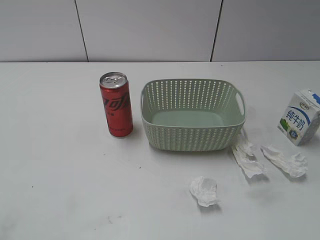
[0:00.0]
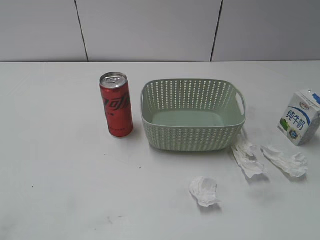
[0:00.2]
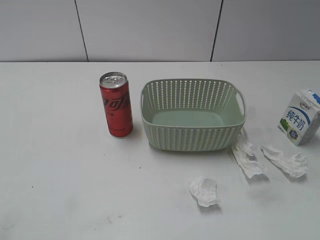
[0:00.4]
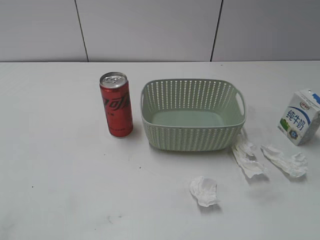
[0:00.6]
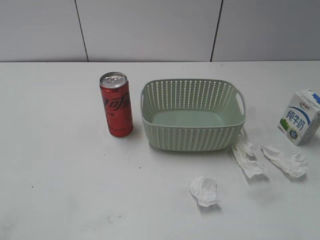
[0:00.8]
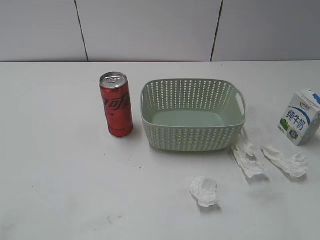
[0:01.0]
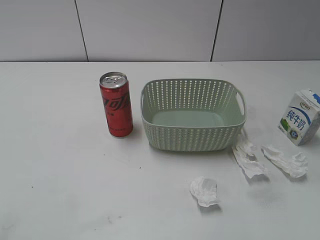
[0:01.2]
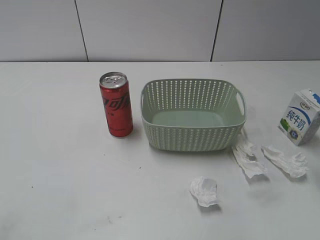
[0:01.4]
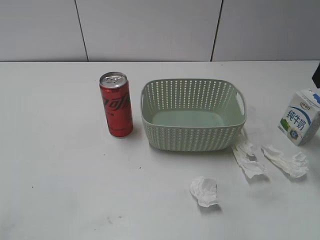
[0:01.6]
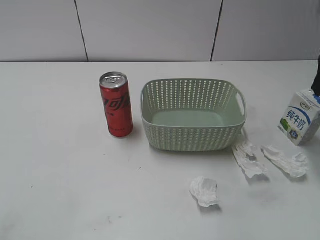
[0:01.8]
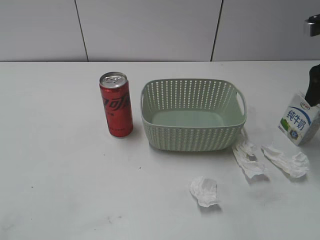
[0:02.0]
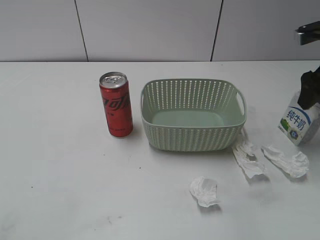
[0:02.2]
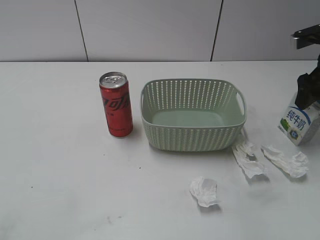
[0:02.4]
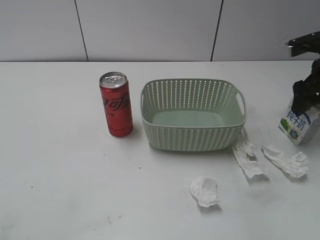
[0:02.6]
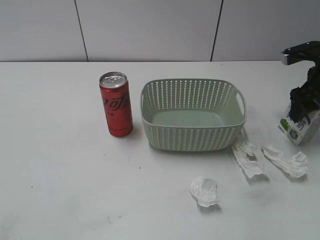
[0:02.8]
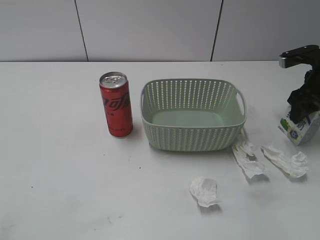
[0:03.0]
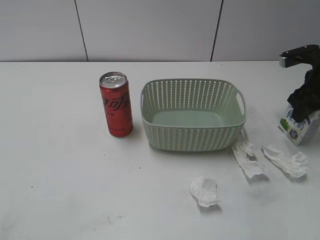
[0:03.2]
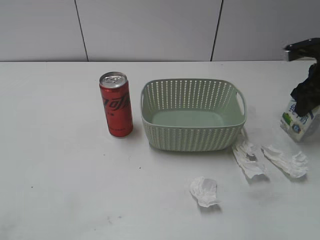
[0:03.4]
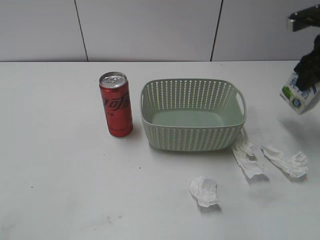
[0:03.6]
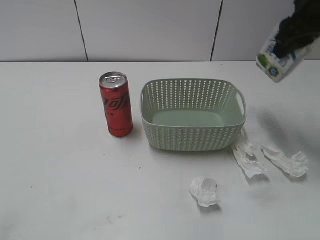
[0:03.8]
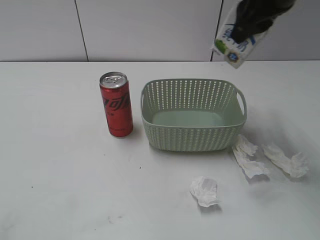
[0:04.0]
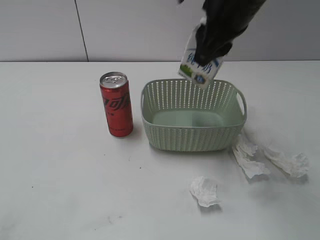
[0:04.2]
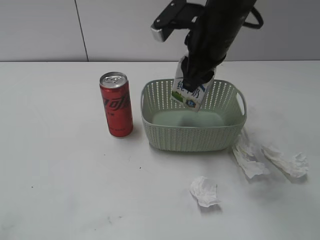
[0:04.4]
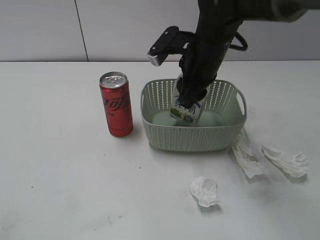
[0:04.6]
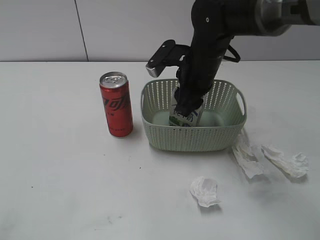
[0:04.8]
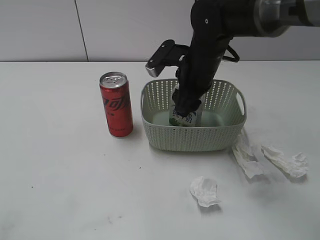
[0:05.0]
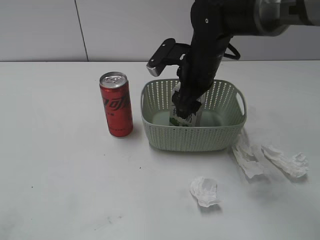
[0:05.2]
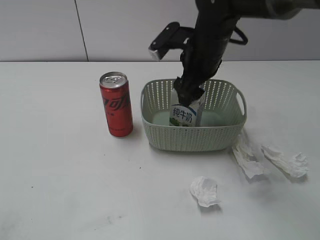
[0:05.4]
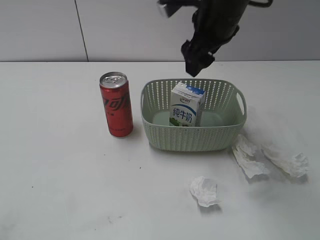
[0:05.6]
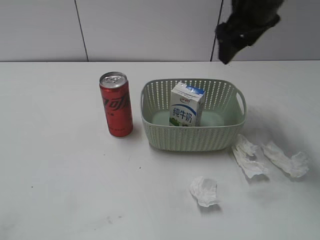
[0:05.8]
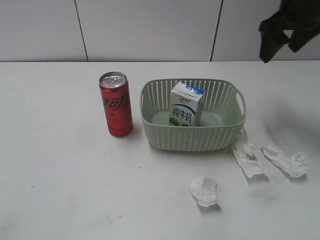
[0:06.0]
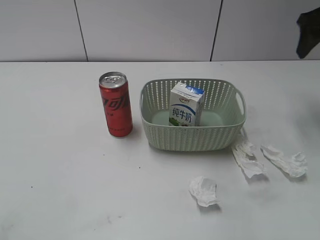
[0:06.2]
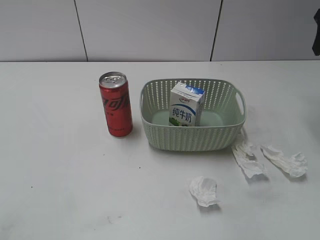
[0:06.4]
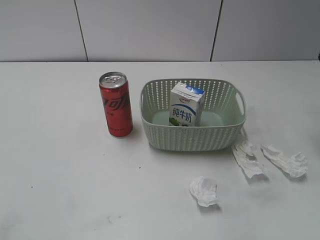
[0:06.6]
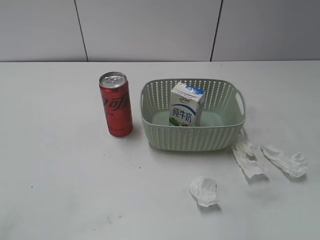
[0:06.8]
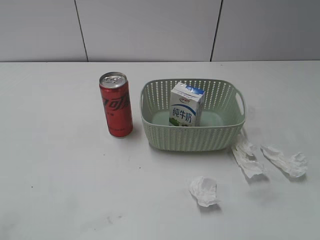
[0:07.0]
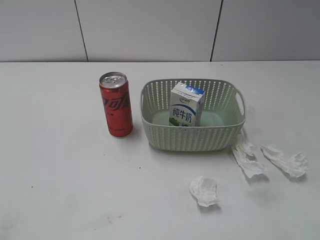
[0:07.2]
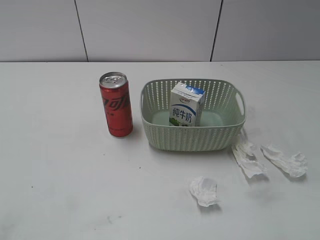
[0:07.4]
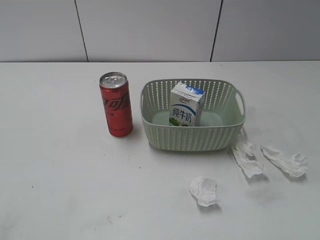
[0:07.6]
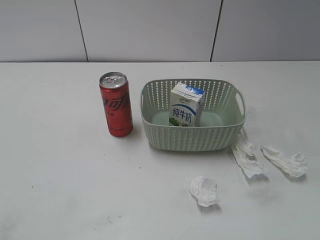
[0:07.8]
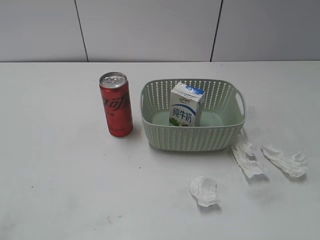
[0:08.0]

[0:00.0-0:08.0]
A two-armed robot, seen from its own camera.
Step, 0:01.6 to 0:03.0: Grasp the milk with right gripper.
Step, 0:03.2 to 0:05.6: Place the milk in the basket with right gripper.
0:01.6 to 0:03.2: The right gripper is displaced downward and forward by about 15 cm, and closes up.
0:03.2 to 0:04.8: The right gripper is displaced to the left by about 25 cm.
0:04.8 to 0:06.4: The right gripper goes some 30 cm to the right and upward, and opens up.

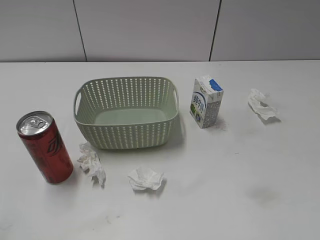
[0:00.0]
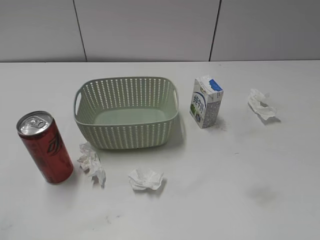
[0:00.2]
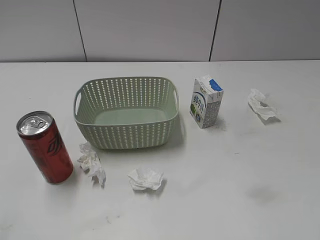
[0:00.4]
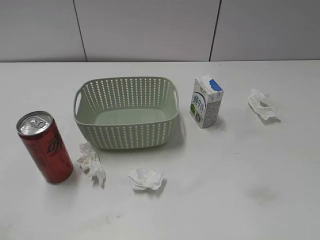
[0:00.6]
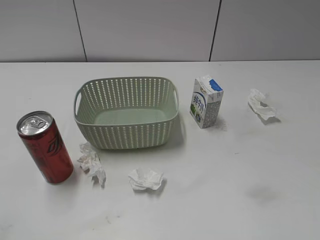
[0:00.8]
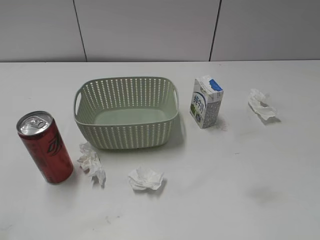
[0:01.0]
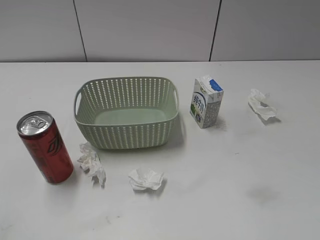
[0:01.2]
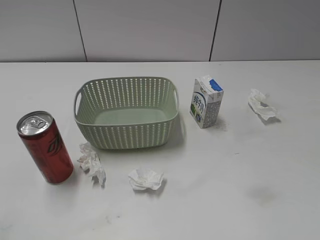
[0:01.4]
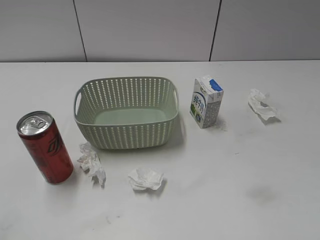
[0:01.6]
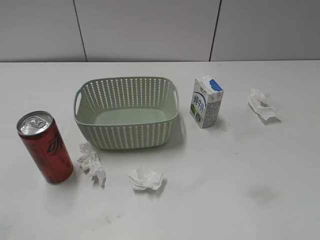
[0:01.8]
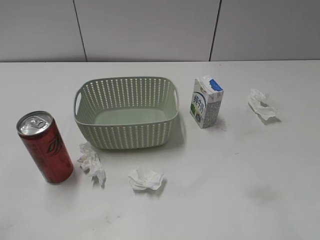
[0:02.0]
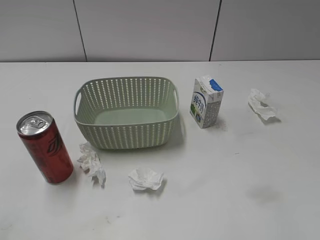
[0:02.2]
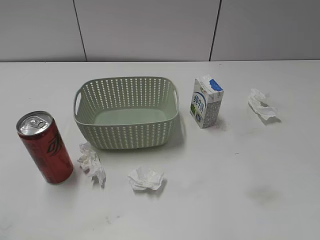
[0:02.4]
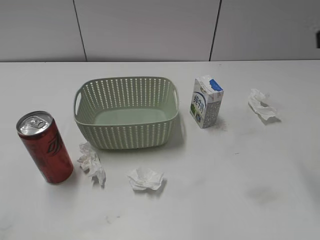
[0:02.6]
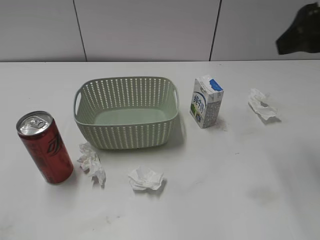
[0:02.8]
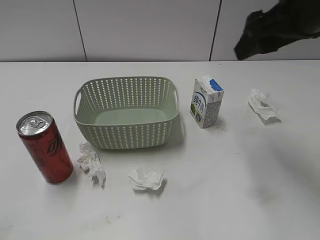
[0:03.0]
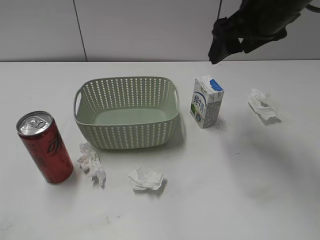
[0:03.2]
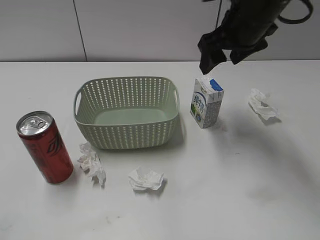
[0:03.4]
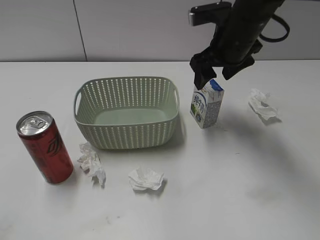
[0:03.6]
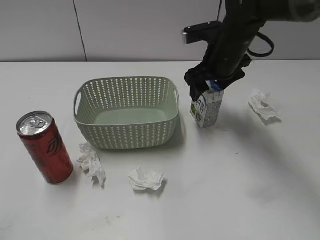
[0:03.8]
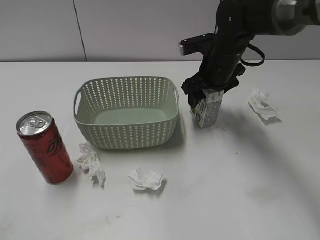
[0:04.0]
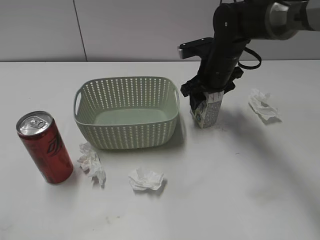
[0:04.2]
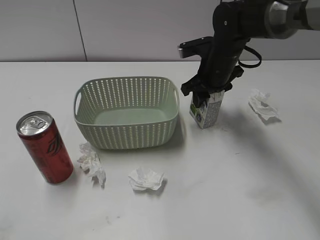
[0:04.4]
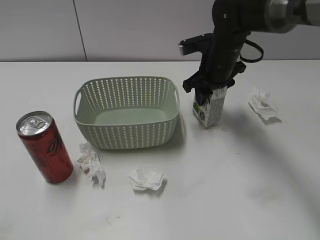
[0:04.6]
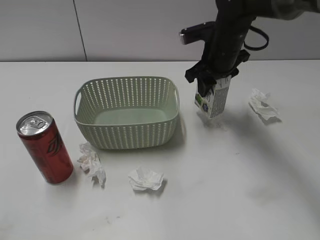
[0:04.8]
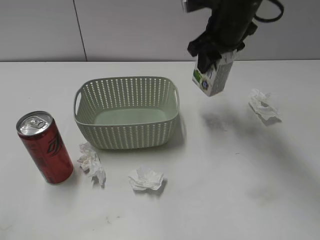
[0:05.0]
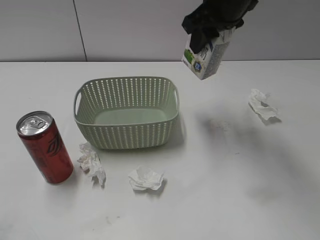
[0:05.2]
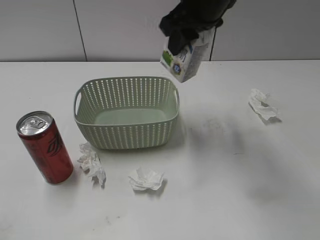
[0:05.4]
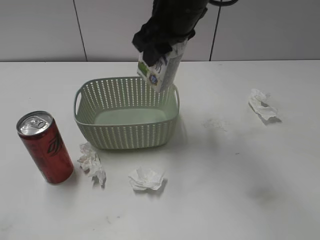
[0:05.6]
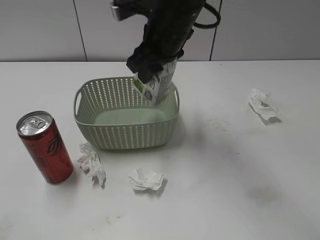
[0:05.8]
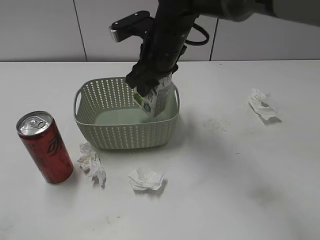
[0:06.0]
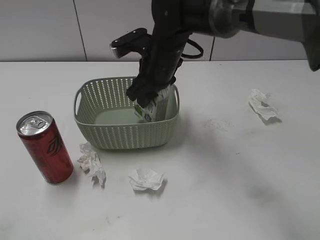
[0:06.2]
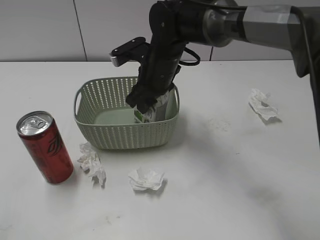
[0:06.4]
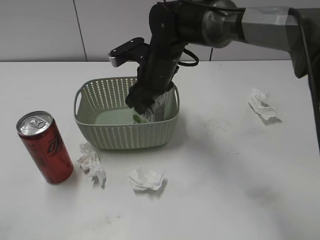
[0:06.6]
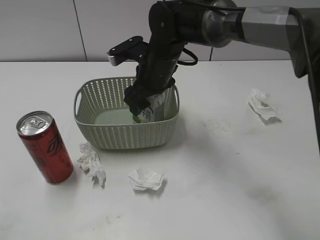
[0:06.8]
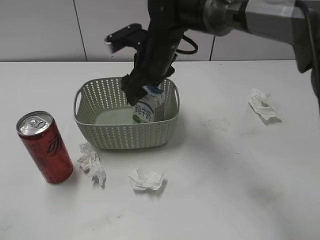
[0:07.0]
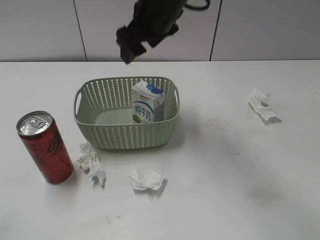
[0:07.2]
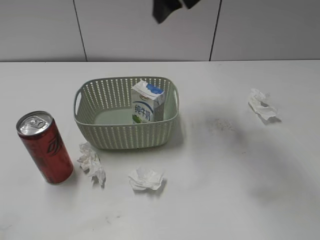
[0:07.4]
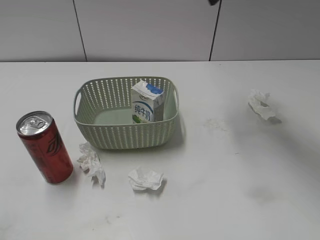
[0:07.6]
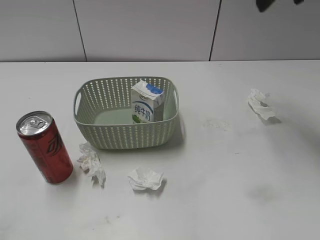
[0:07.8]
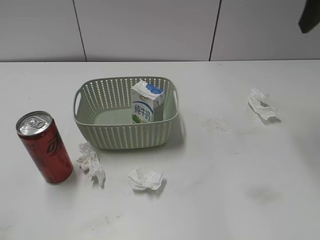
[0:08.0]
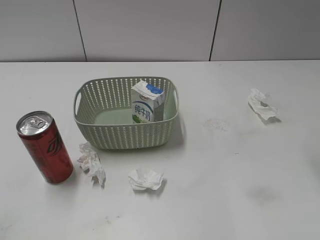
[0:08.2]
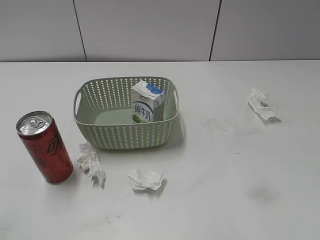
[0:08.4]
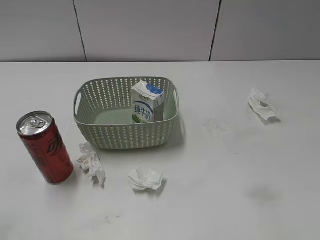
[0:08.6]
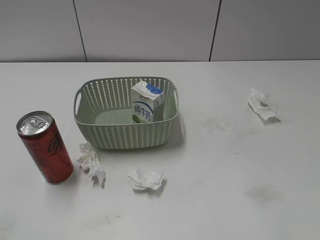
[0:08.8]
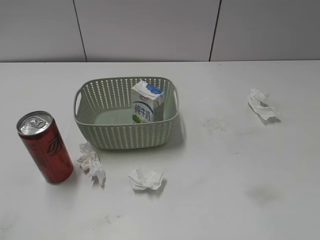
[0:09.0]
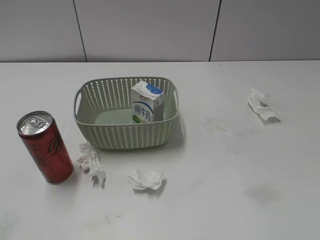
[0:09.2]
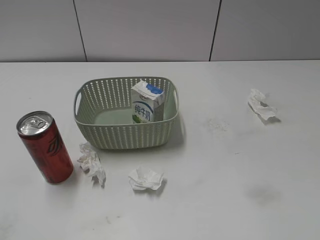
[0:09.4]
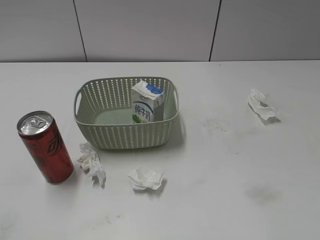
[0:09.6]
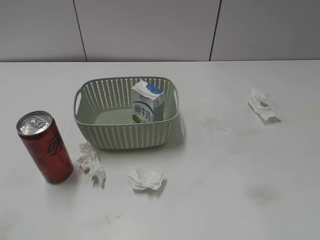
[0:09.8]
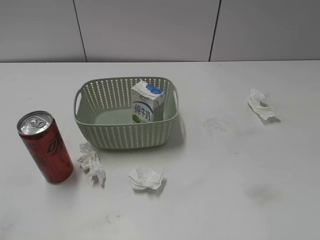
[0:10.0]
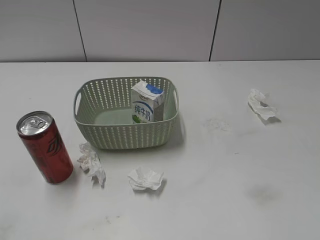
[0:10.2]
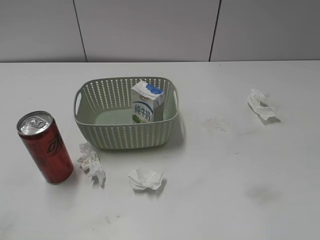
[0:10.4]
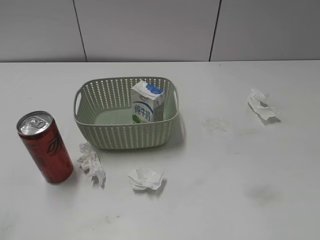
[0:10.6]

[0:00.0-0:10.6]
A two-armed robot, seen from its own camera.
Step, 0:02.6 to 0:04.4: Grasp the milk with right gripper.
Step, 0:04.6 to 0:07.2: Place the milk in the basket with right gripper.
0:01.6 to 0:03.0: The right gripper is displaced forward and to the left by about 30 cm.
0:03.0 to 0:04.6: The right gripper heads downward, forward and to the left, covering approximately 20 cm, and closes.
0:04.6 to 0:06.0: The right gripper moves to the left and upward, some 10 cm.
0:06.0 to 0:07.6: The right gripper moves upward and to the right, roughly 20 cm, and opens its fingers.
0:07.6 to 0:09.0: The right gripper travels backward and to the right by roughly 40 cm.

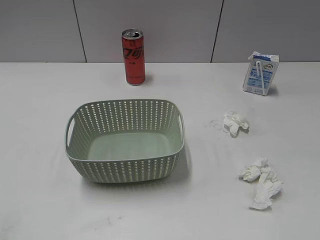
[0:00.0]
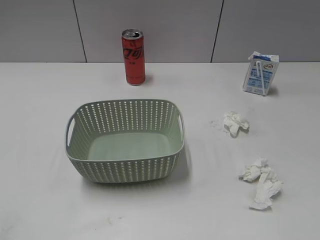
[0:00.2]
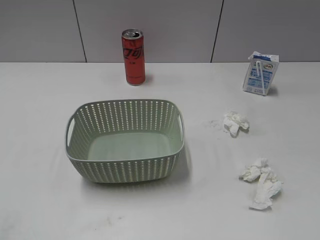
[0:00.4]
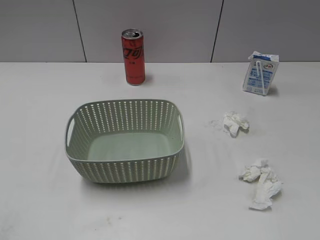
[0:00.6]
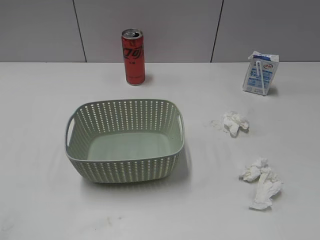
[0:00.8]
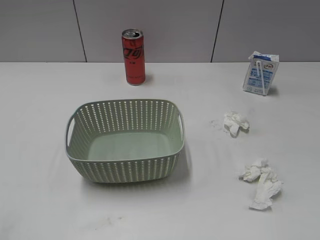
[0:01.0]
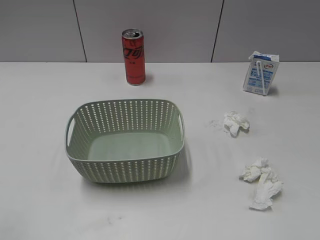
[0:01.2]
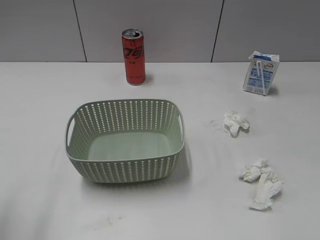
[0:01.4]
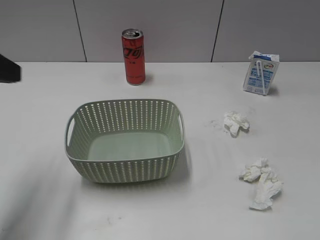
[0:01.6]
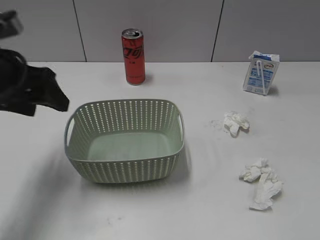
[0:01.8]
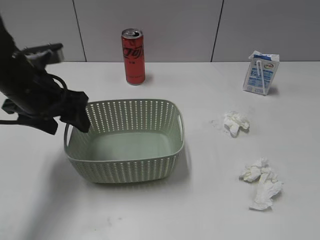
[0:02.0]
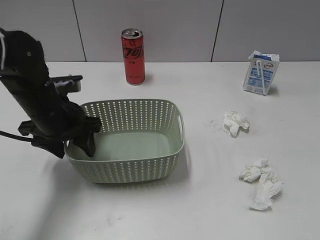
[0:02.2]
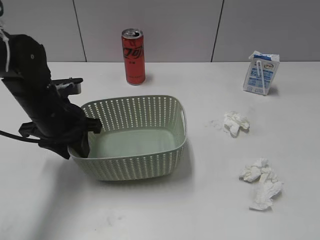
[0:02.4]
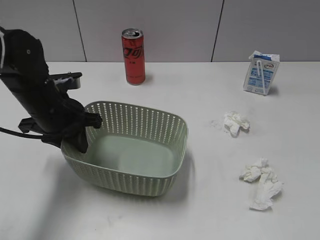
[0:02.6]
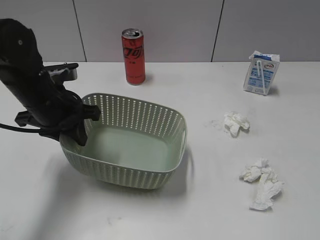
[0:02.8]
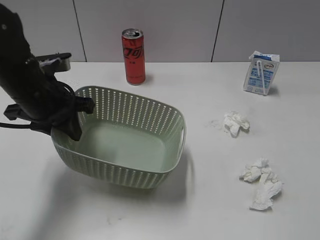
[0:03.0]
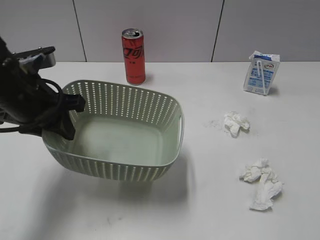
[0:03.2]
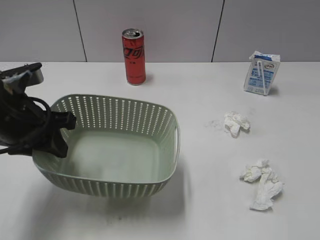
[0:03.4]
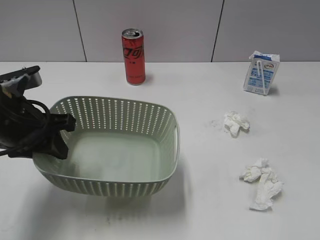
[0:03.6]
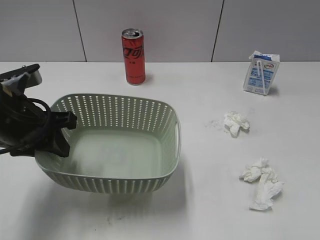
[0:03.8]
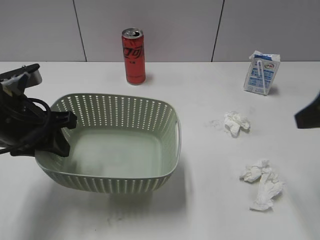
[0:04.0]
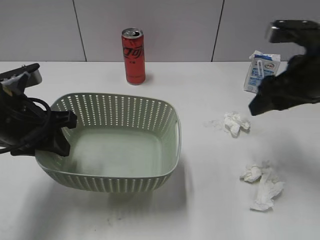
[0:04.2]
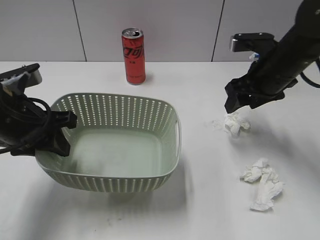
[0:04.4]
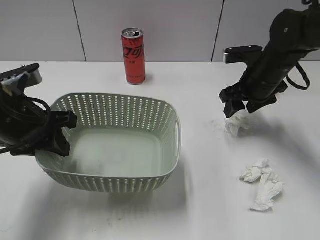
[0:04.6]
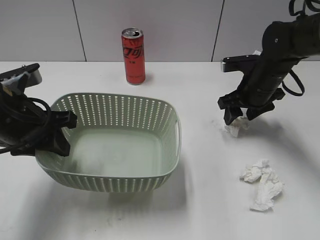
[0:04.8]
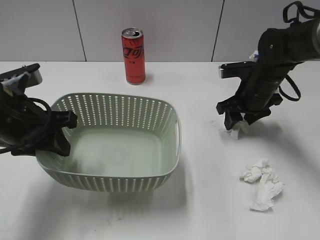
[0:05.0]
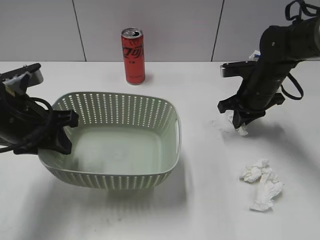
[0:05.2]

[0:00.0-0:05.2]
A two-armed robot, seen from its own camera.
Step, 0:01.6 to 0:02.6: Grasp the basket with left gripper.
Step, 0:02.8 to 0:03.2: Lift the basket with left gripper.
0:01.8 to 0:03.4: The left gripper is displaced downward by approximately 5 cm, and closes its fingers.
0:03.4 to 0:05.2: The right gripper is displaced forward by about 40 cm, and closes up.
